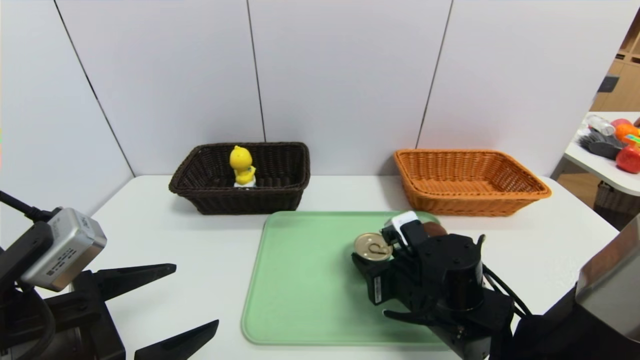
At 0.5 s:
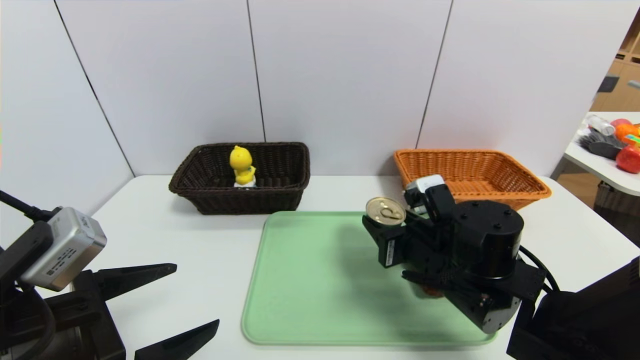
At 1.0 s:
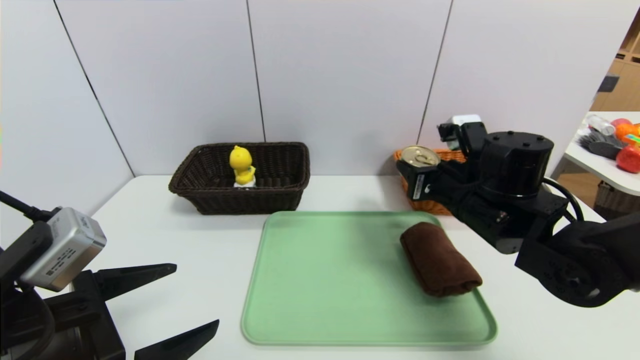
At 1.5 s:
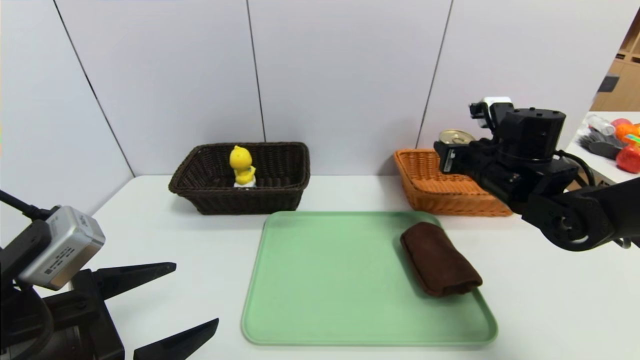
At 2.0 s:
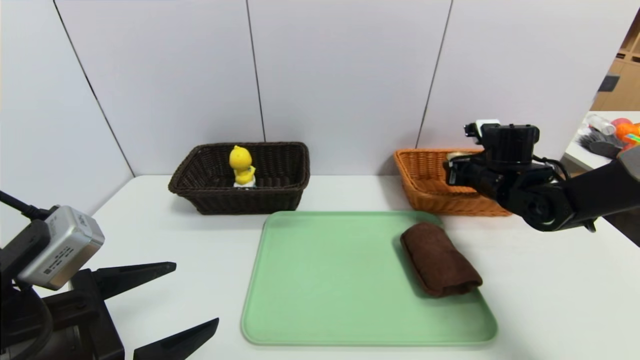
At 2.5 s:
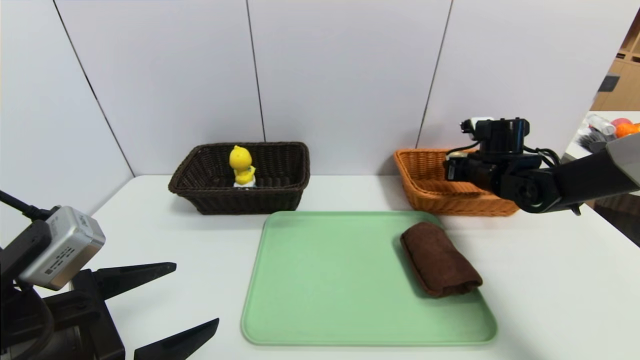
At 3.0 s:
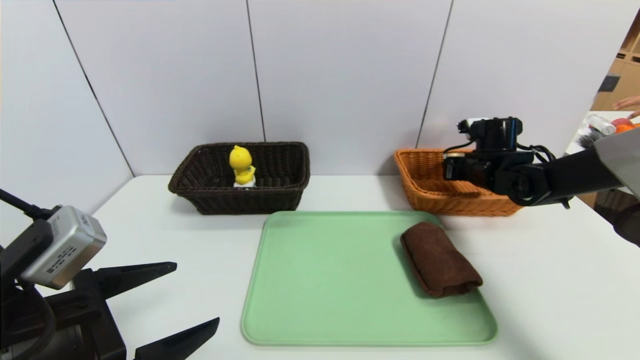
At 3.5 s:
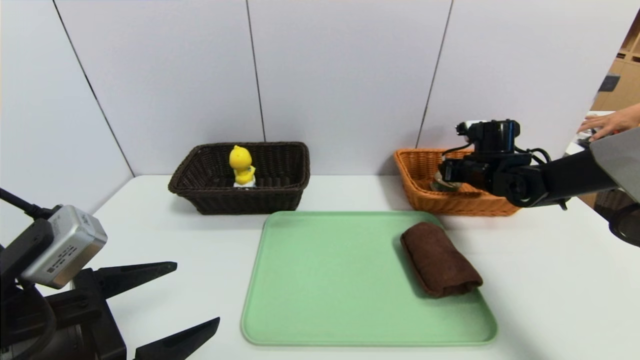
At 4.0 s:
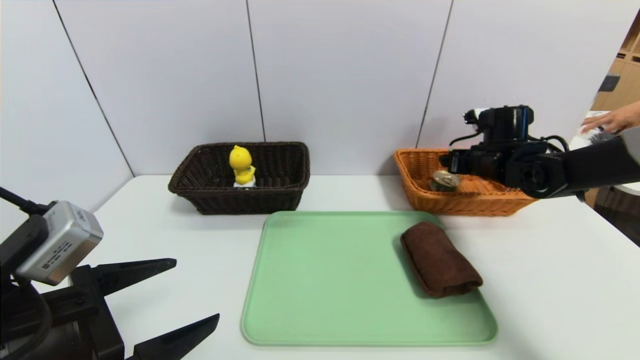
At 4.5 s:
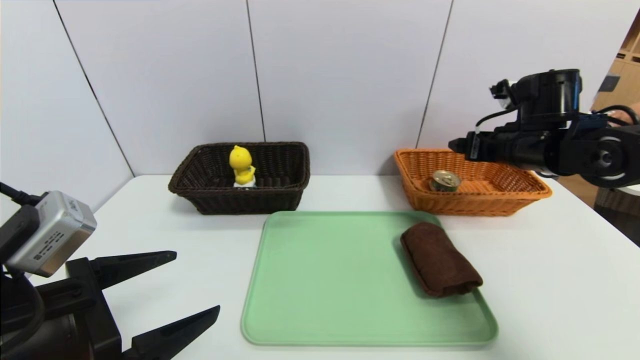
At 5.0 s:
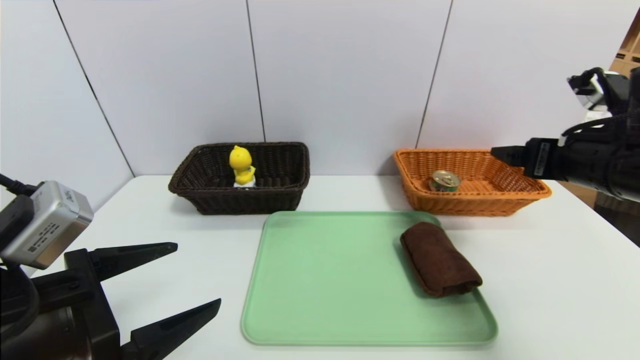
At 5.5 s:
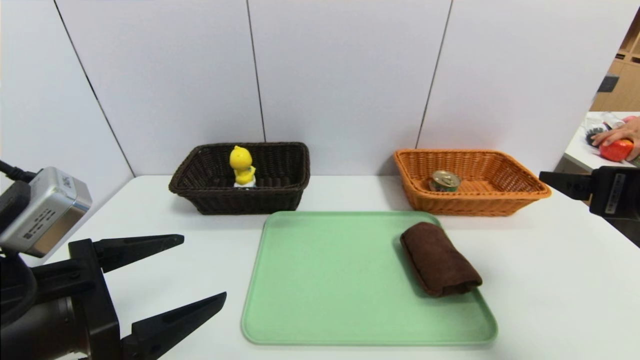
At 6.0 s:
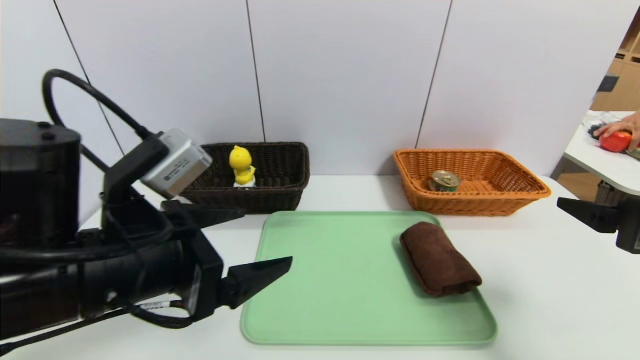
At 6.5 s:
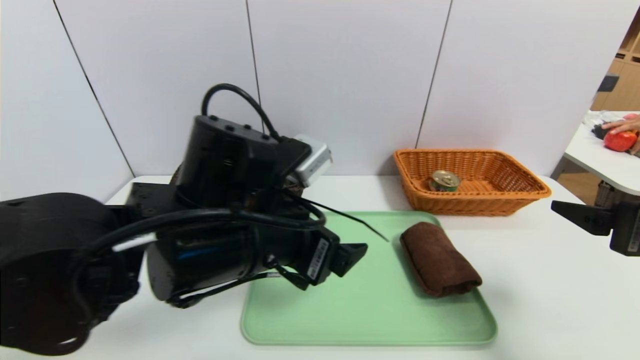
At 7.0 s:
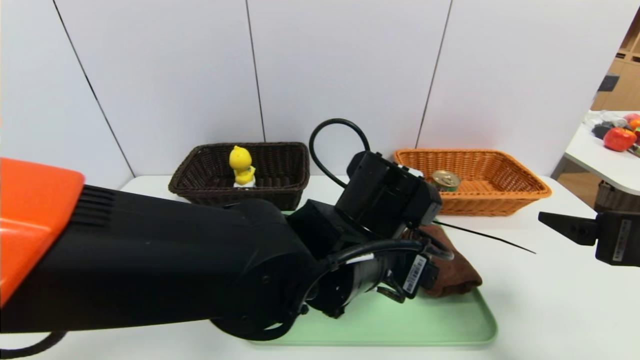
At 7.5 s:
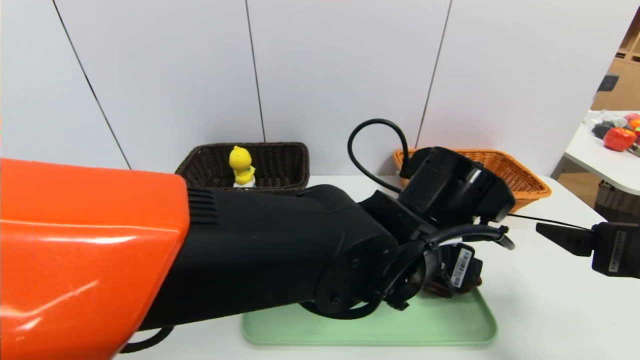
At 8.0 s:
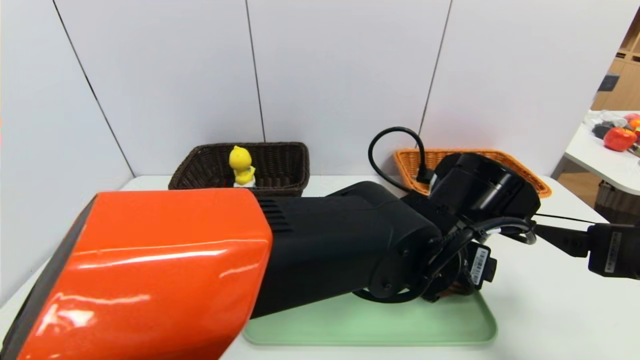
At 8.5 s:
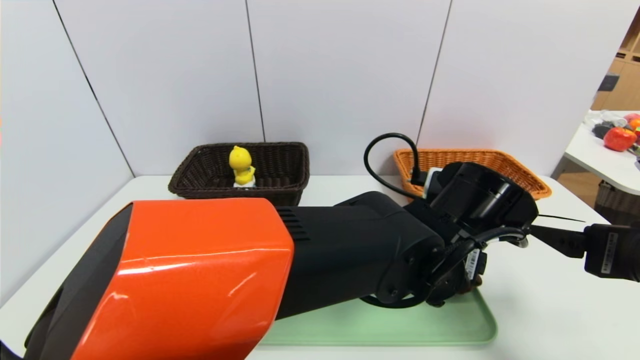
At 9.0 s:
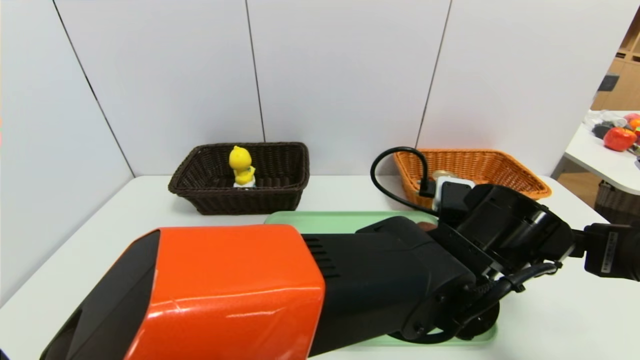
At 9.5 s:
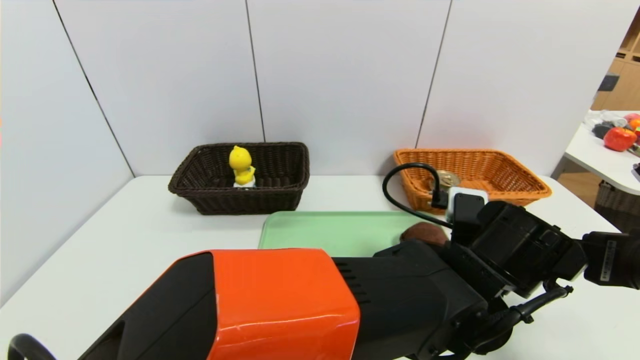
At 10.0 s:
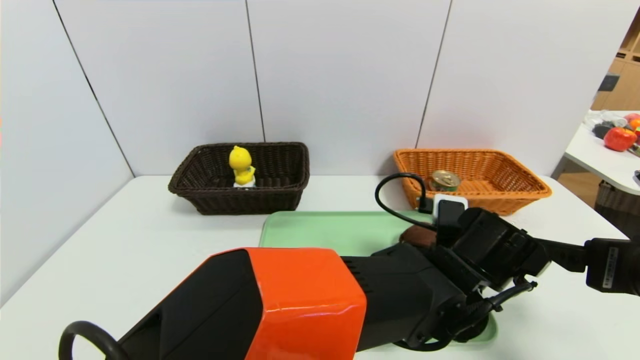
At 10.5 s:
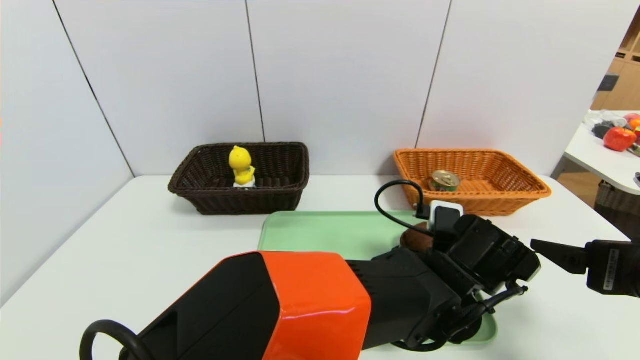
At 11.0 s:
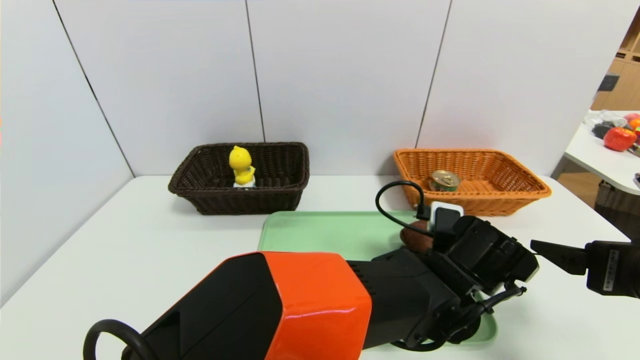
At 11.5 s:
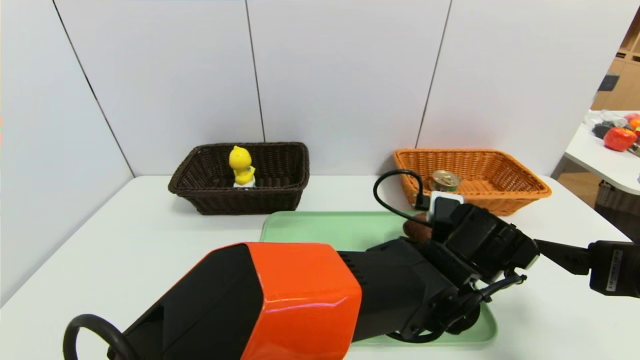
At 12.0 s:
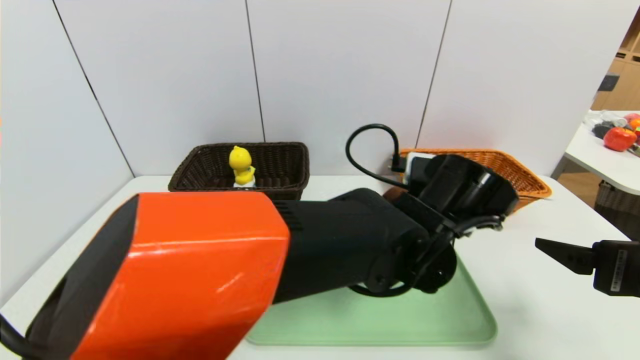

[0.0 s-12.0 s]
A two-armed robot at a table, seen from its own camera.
Task of the whole recording: place the food in the right basket with the right gripper, and place the non food items in the left basket with the left gripper.
Step, 0.0 to 3.5 s: Grasp the can and put it in the right basket.
0.0 to 2.0 s: The right gripper shifts approximately 25 cm forward, to the right and upward.
2.0 to 4.0 s: The right gripper opens.
4.0 to 6.0 s: The right gripper is displaced backward by about 30 cm, while the left gripper moves to the right and forward, approximately 10 cm.
6.0 to 8.0 s: The left gripper heads to the right, covering some 25 cm.
8.0 to 10.0 s: The left gripper heads downward, covering roughly 5 cm.
10.0 to 12.0 s: The left gripper goes some 10 cm upward and to the left, and closes.

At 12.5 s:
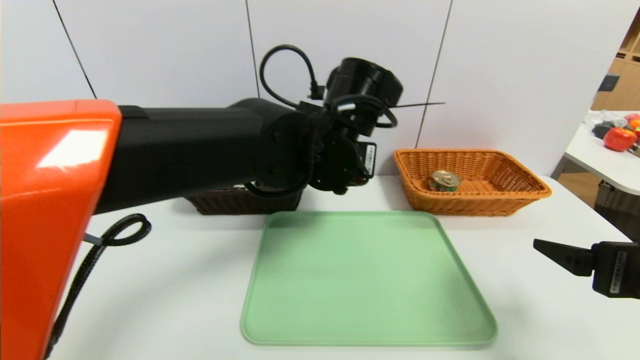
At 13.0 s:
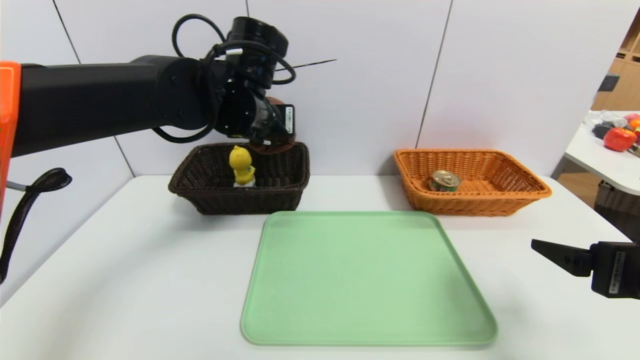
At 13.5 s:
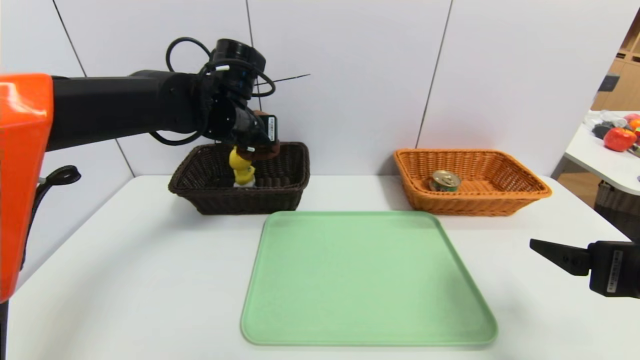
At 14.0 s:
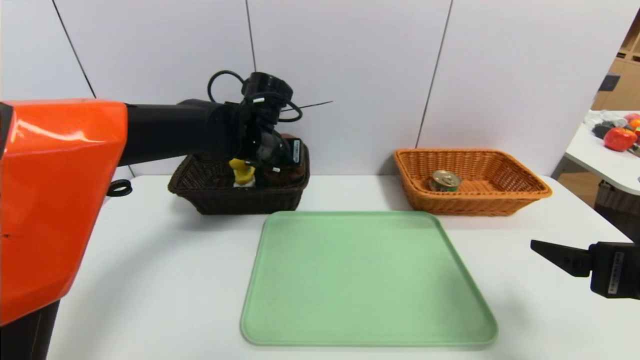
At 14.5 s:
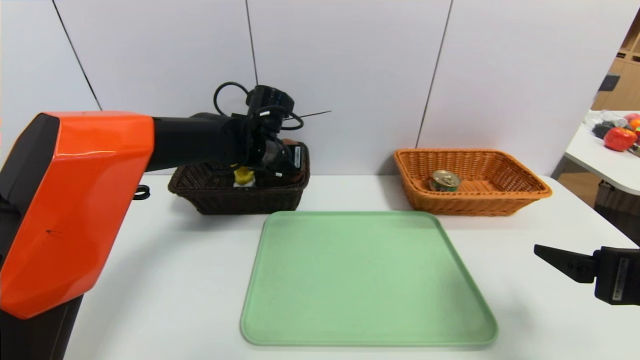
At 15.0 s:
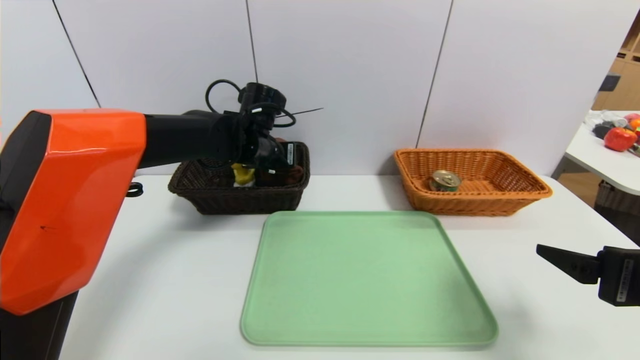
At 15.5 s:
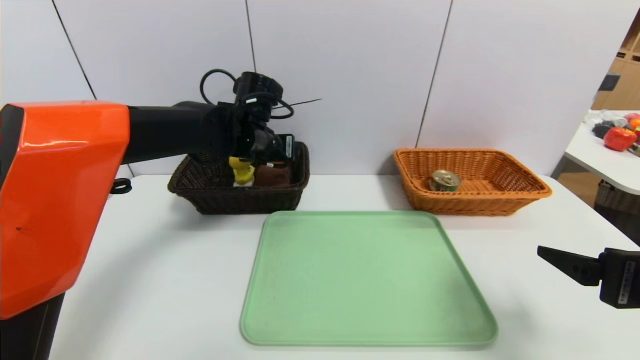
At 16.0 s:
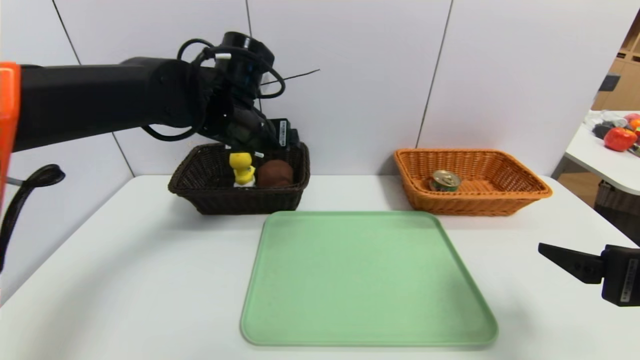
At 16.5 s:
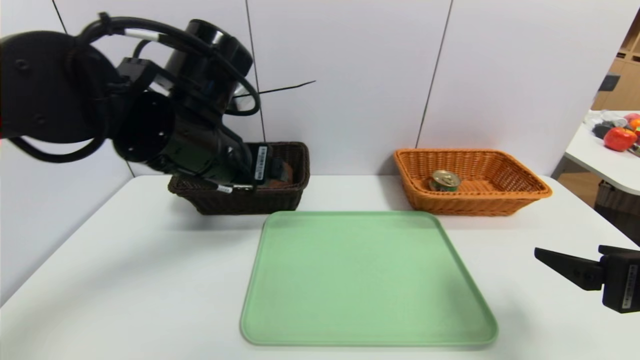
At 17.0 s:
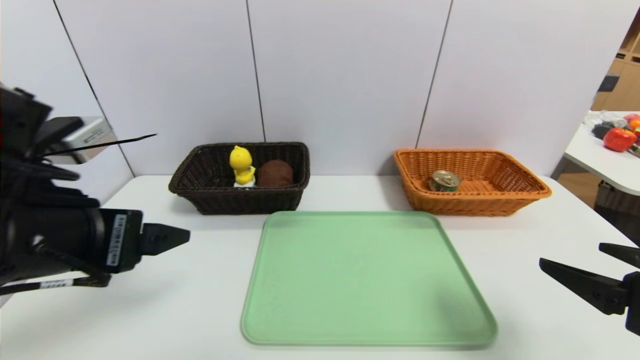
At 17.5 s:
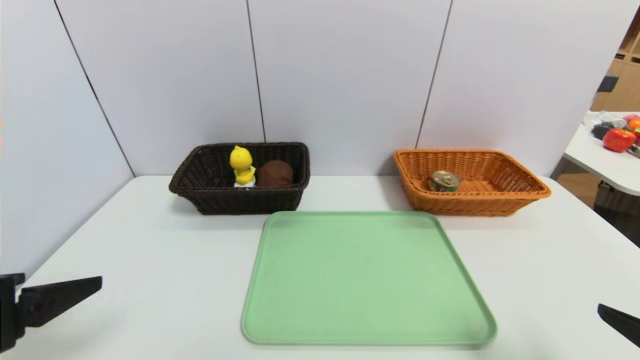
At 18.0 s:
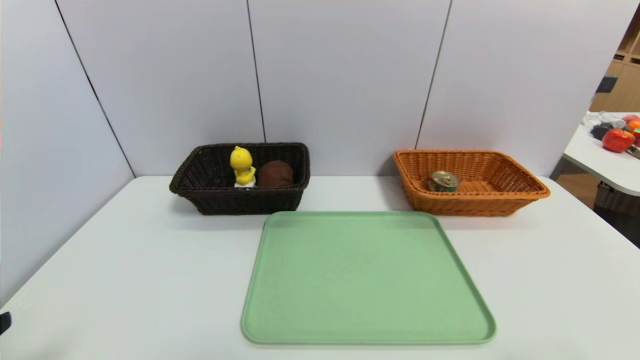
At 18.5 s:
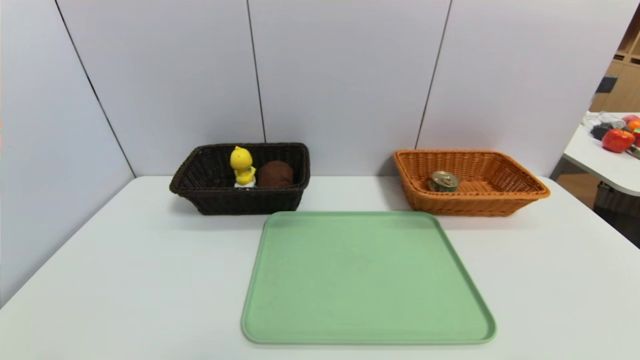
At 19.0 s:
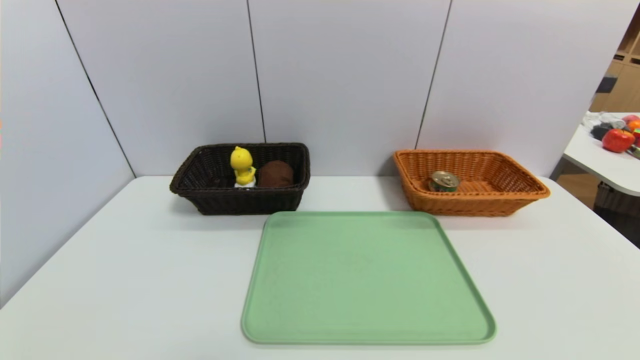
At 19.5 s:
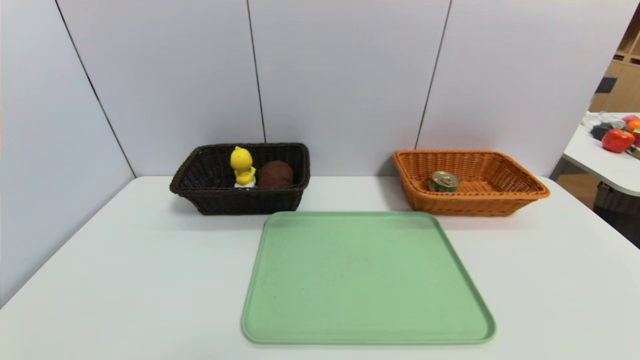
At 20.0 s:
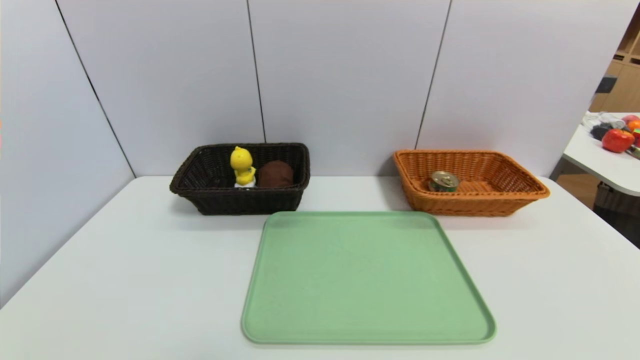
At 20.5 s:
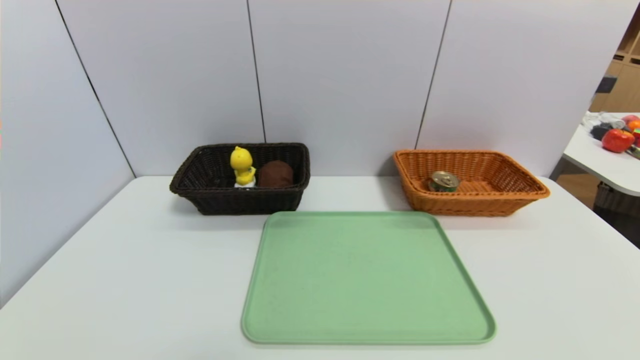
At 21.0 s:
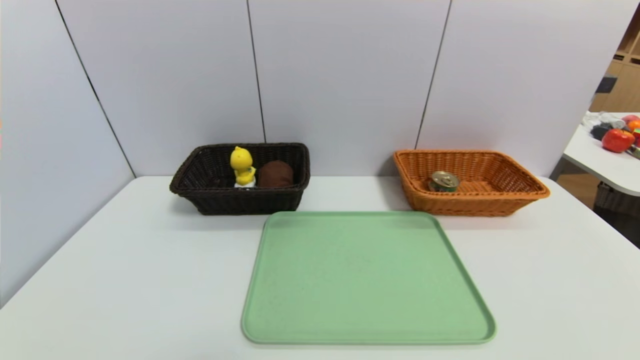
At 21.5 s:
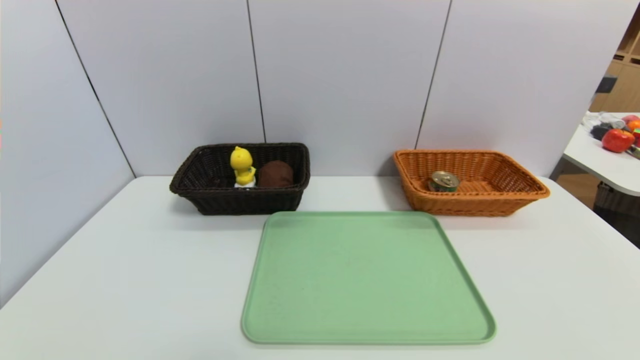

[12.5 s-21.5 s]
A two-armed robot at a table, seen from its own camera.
Task of the whole recording: place the food in the right basket with the right gripper, and place the non food items in the left basket with the left gripper.
Step, 12.5 to 15.5 s: Grasp the brown towel and put it in the left basket.
12.5 to 14.5 s: The left gripper is displaced forward, to the left and downward by approximately 15 cm.
14.5 to 17.0 s: The left gripper is displaced backward and to the left by about 30 cm, and opens.
17.0 to 19.5 s: The left gripper shifts about 25 cm backward, downward and to the left. The right gripper moves backward and downward, some 15 cm.
